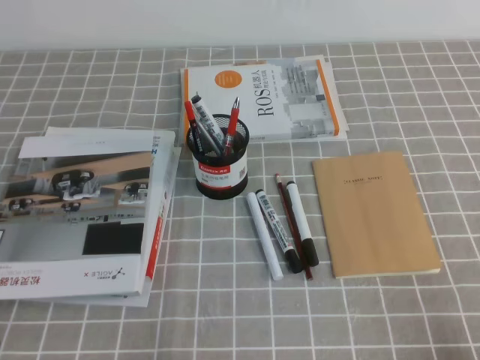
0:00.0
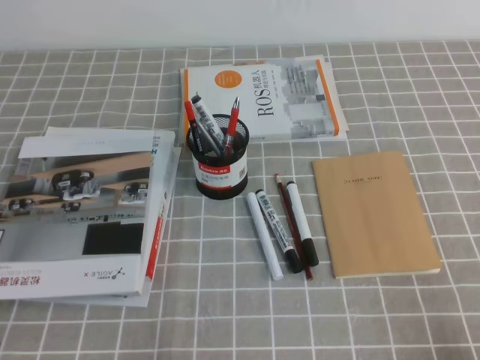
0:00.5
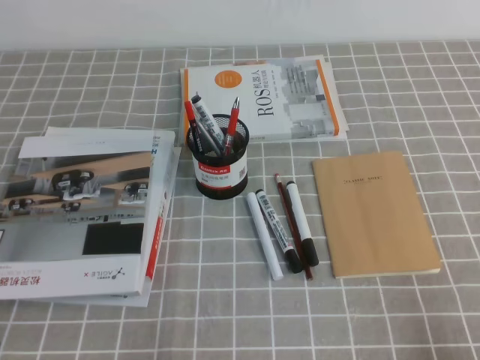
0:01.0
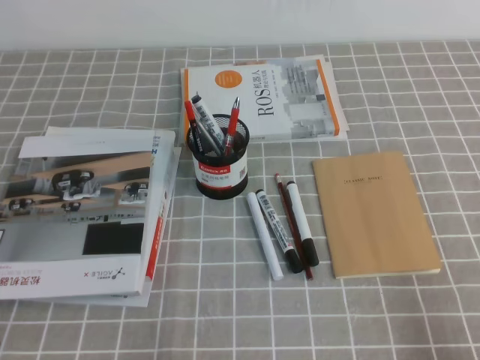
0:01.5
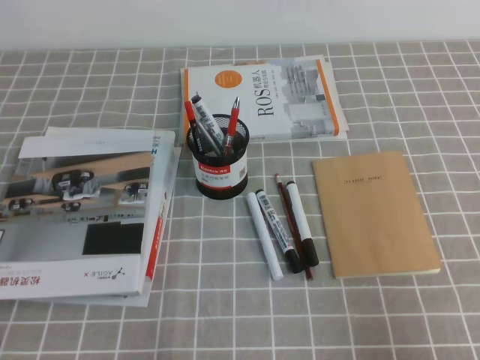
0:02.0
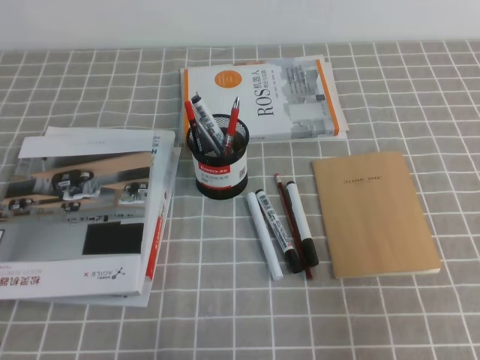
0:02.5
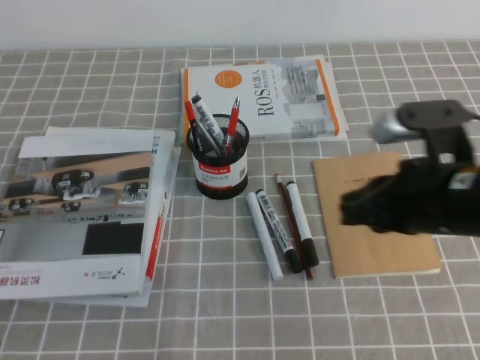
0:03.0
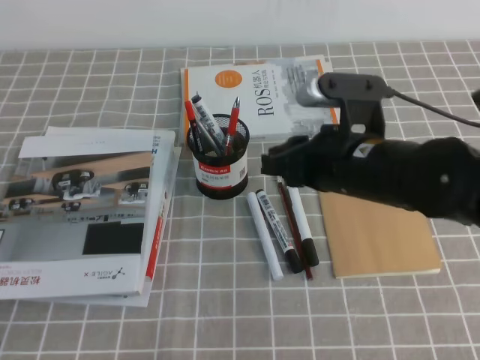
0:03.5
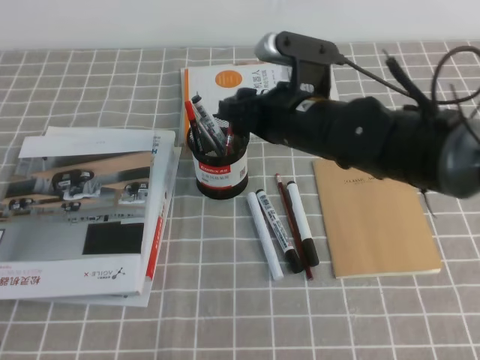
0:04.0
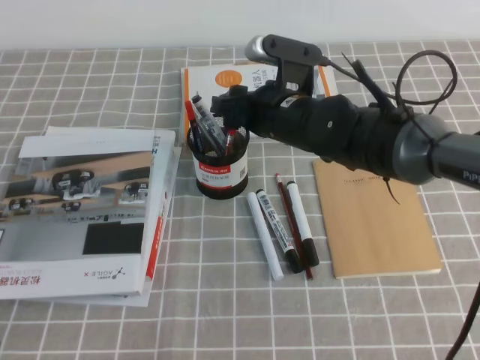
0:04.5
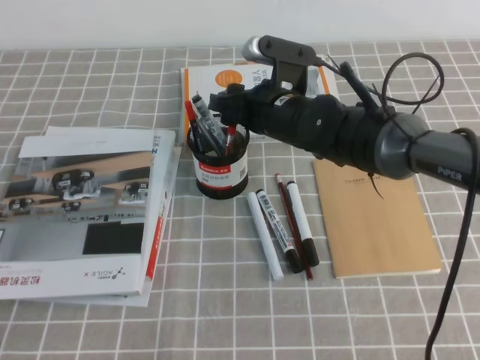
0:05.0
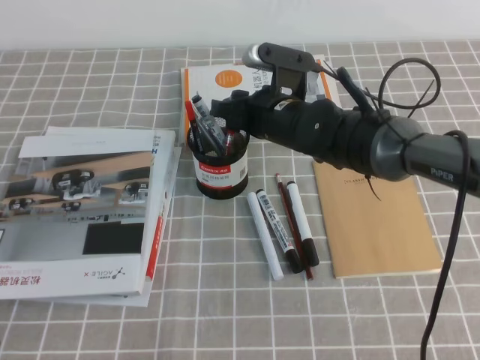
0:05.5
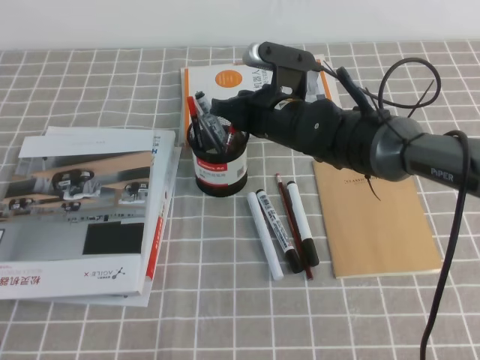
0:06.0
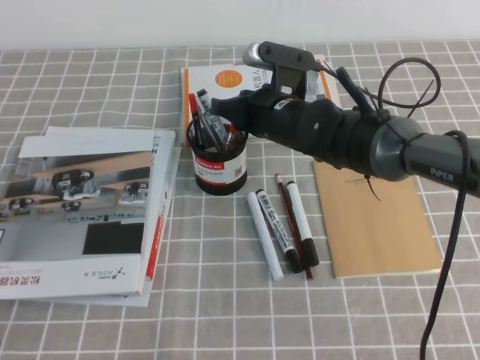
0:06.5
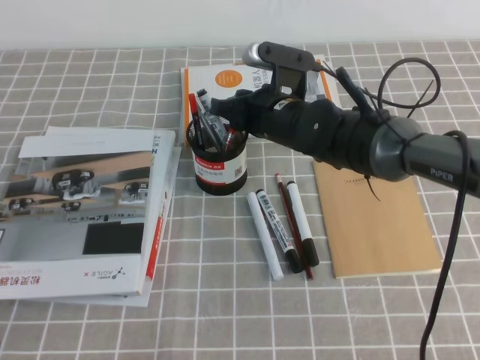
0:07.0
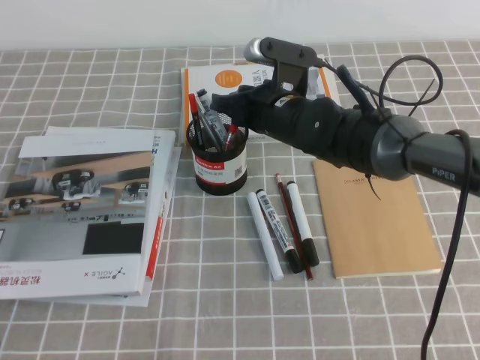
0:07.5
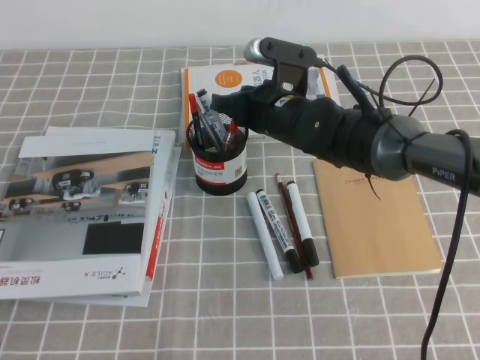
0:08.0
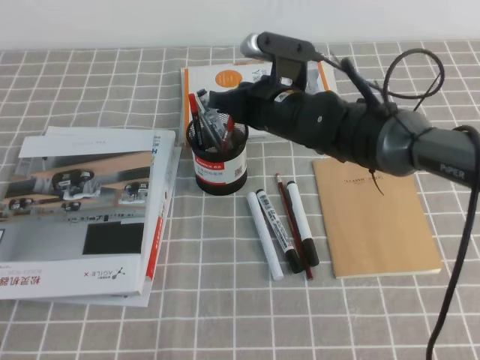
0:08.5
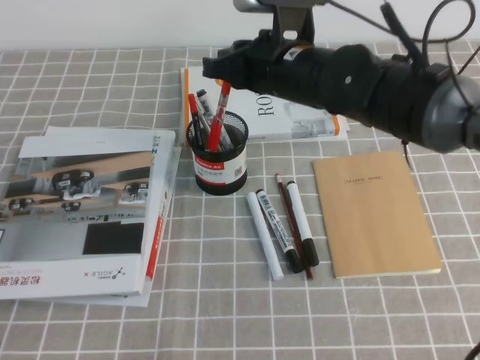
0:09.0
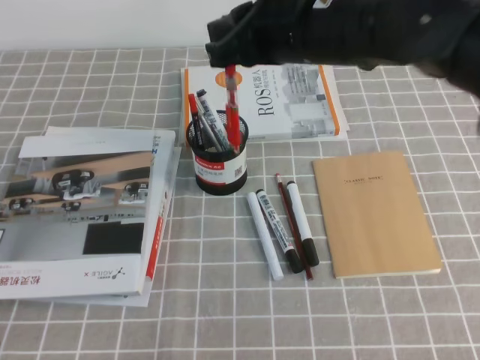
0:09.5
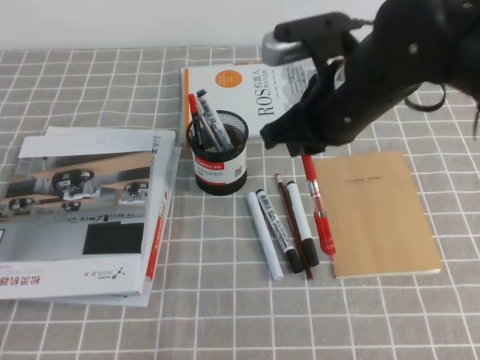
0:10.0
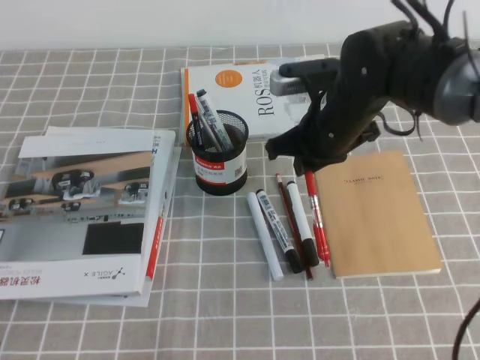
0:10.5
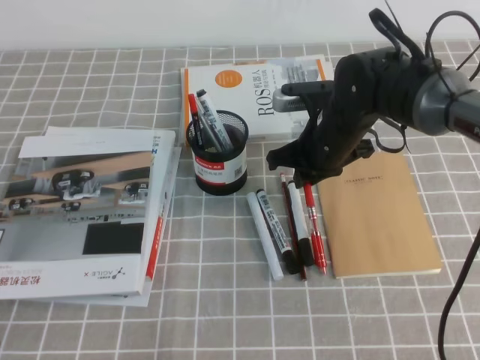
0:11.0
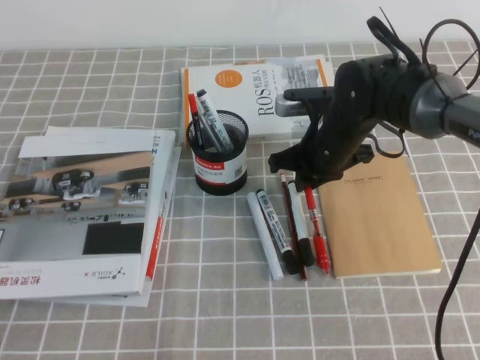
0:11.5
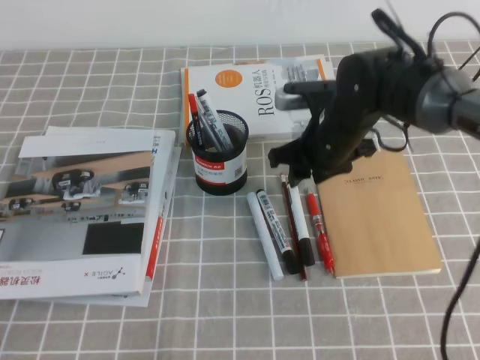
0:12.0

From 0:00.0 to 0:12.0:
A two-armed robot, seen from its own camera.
From 0:00.0 to 0:02.0: The right gripper heads upward, covering some 10 cm.
From 0:02.0 to 0:04.0: The right gripper travels forward and to the left by roughly 35 cm, and opens its fingers.
From 0:04.0 to 0:06.0: The right gripper moves forward, roughly 5 cm, and closes up.
From 0:06.0 to 0:08.0: Both grippers stay about where they are.
From 0:08.0 to 0:10.0: The right gripper moves upward, backward and to the right, approximately 15 cm.
From 0:10.0 to 0:12.0: The right gripper goes some 15 cm downward and forward, and opens its fingers.

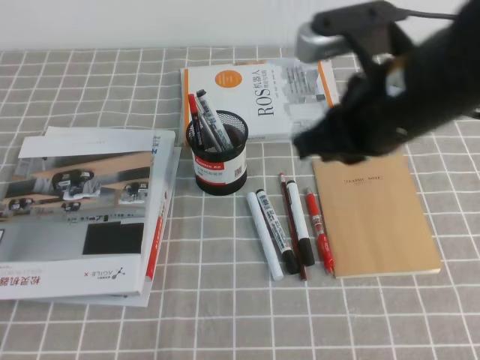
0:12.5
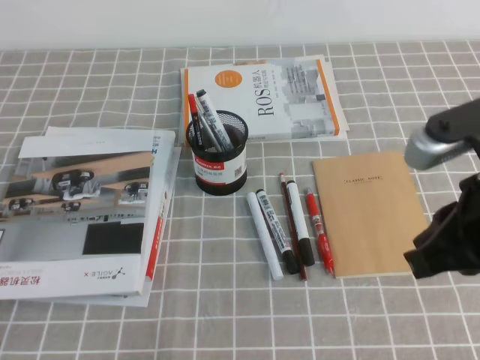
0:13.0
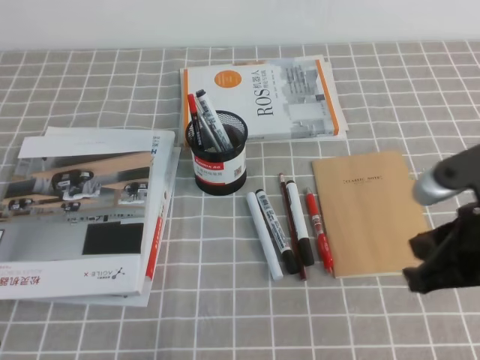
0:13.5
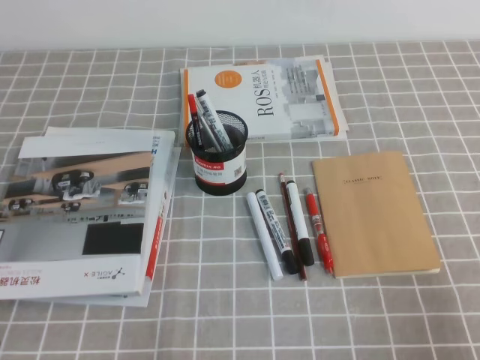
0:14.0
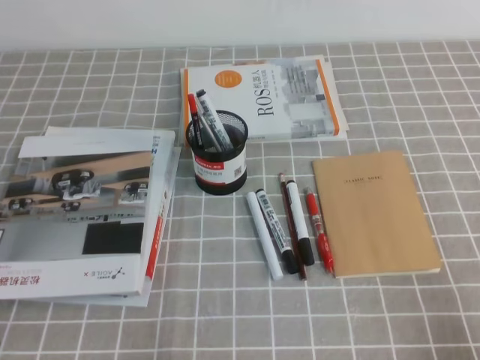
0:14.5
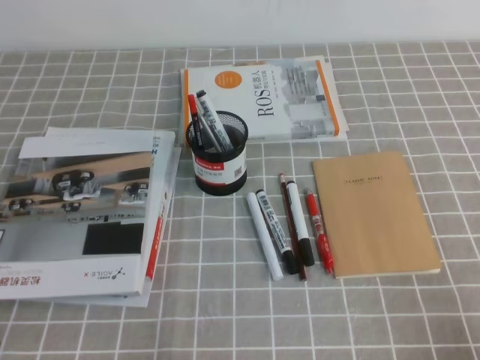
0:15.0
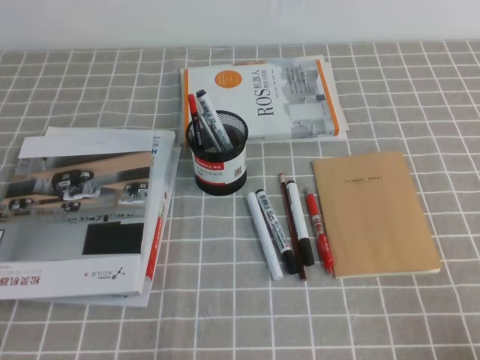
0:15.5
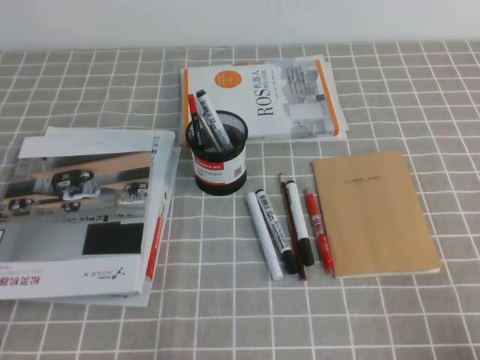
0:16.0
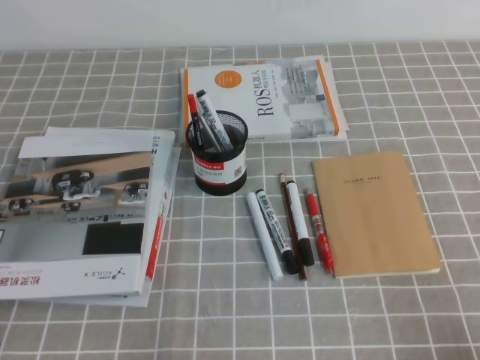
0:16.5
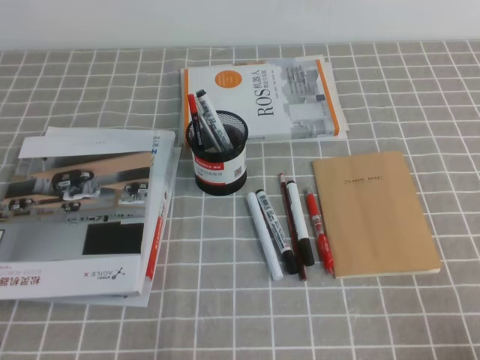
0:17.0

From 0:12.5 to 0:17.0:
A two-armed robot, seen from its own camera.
Step, from 0:12.5 to 0:17.0: Pick up the pen from the pen holder.
From 0:12.5 to 0:14.5: The right gripper goes about 35 cm backward, to the right and downward.

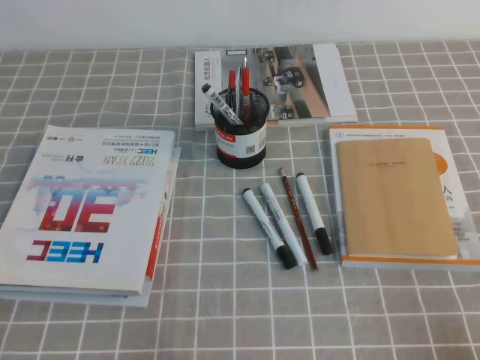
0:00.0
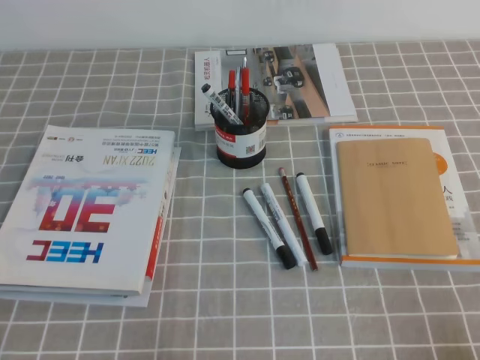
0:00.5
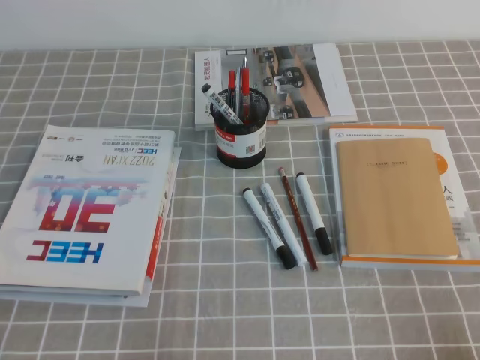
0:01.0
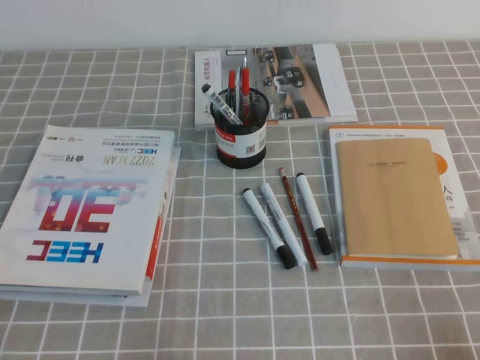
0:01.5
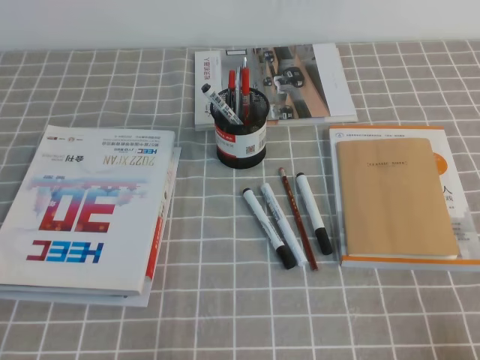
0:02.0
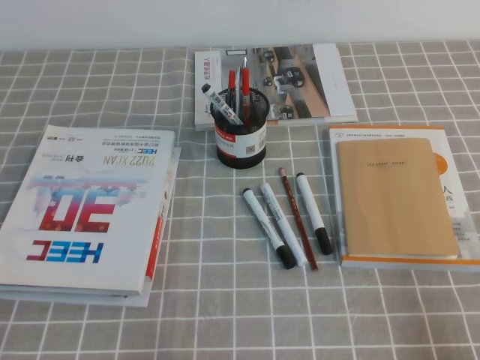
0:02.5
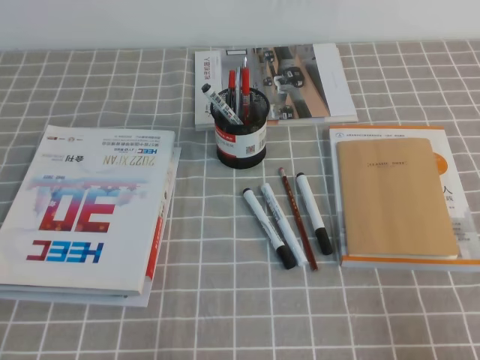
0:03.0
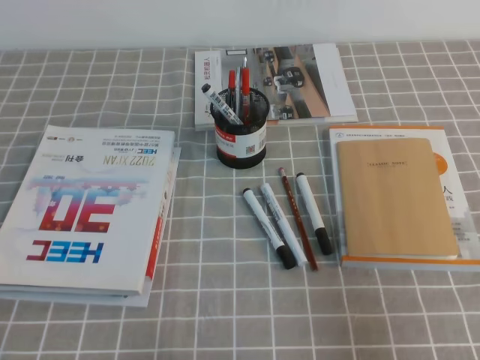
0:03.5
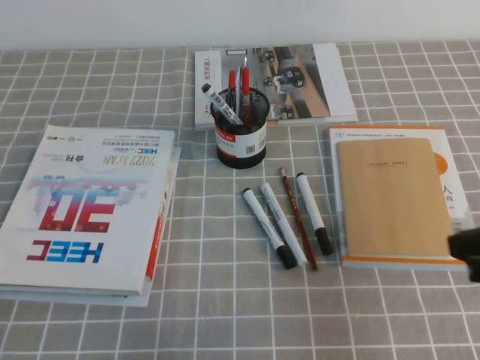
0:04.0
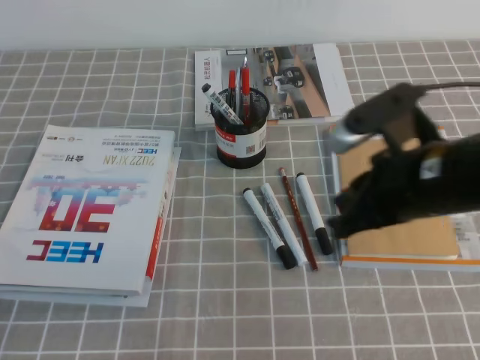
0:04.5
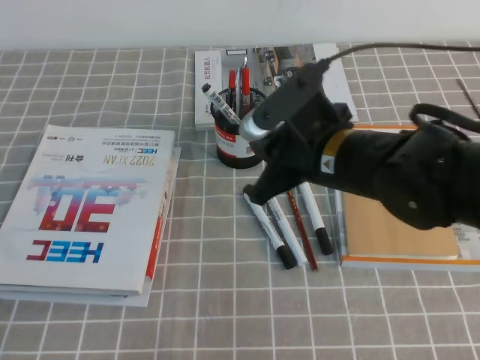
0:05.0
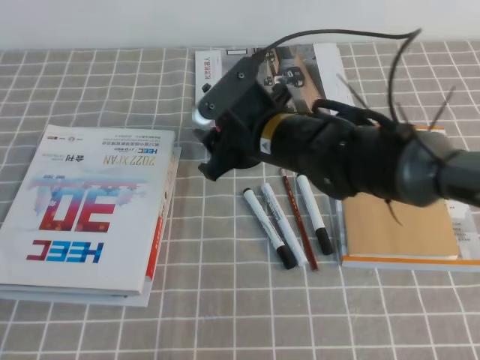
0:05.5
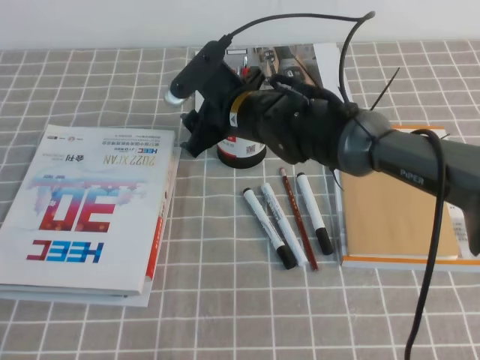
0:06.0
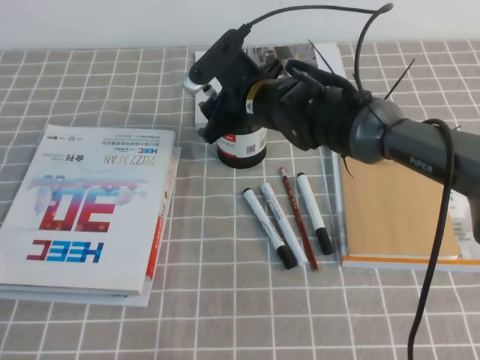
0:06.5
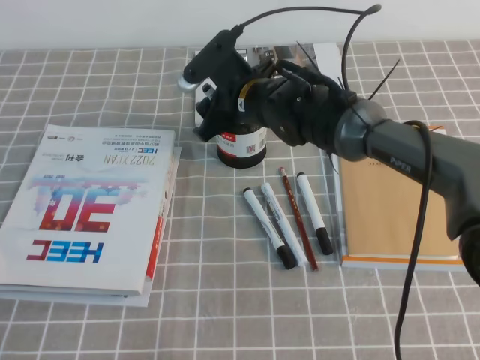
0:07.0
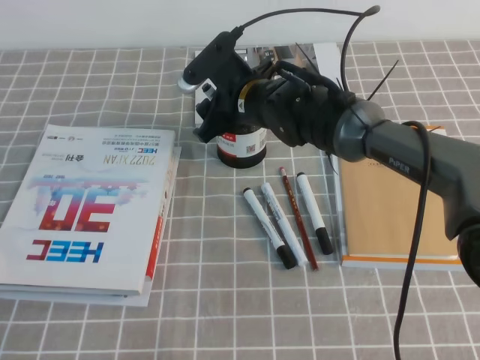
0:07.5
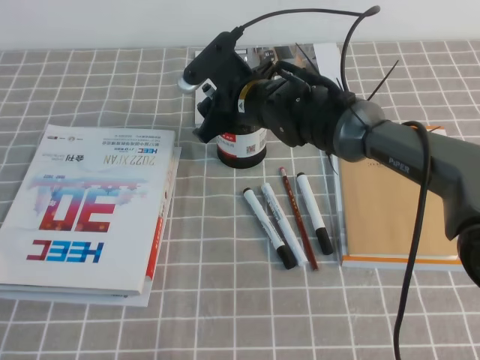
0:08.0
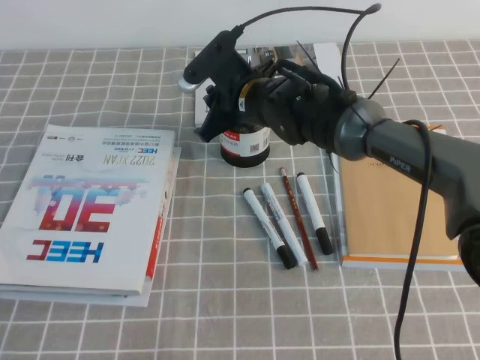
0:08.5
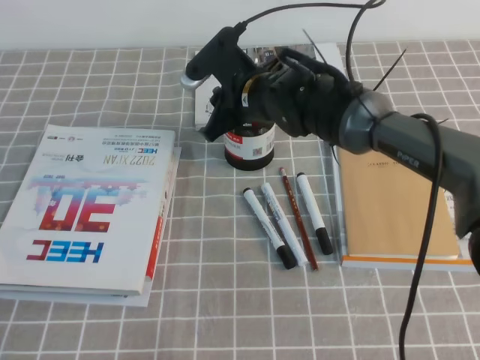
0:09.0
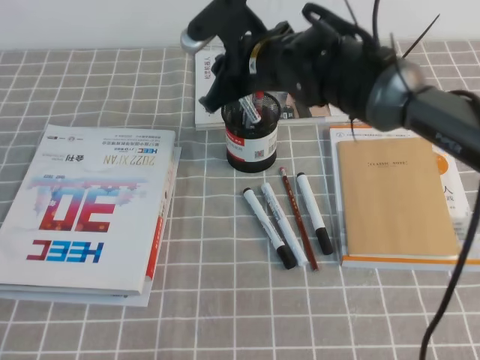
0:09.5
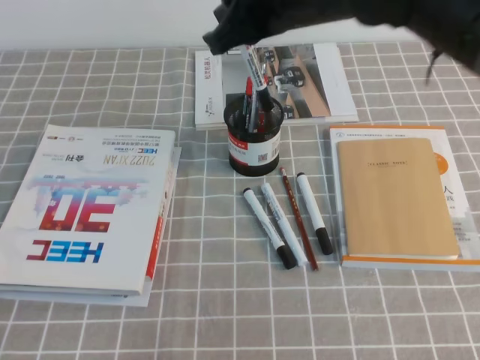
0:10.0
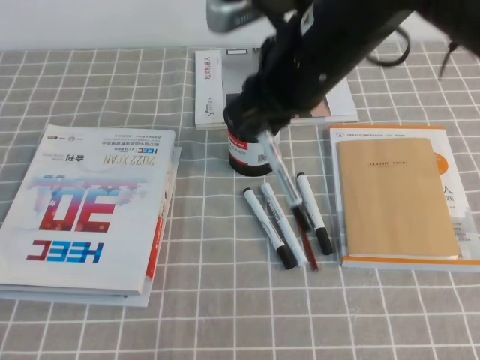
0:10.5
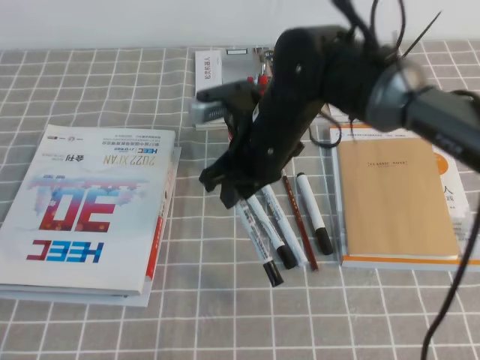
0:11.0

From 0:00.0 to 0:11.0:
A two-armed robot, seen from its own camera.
From 0:00.0 to 0:02.0: Both grippers stay about where they are.
From 0:02.0 to 0:03.5: The right gripper travels upward and forward by some 10 cm.
From 0:03.5 to 0:05.5: The right gripper shifts some 35 cm to the left and forward, and opens.
From 0:05.5 to 0:07.5: The right gripper travels forward by roughly 10 cm.
From 0:07.5 to 0:09.0: The right gripper closes.
From 0:09.0 to 0:11.0: The right gripper heads backward, covering about 10 cm, and moves about 15 cm upward and comes back.
